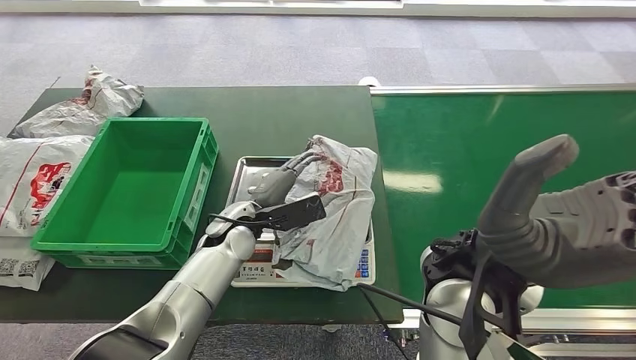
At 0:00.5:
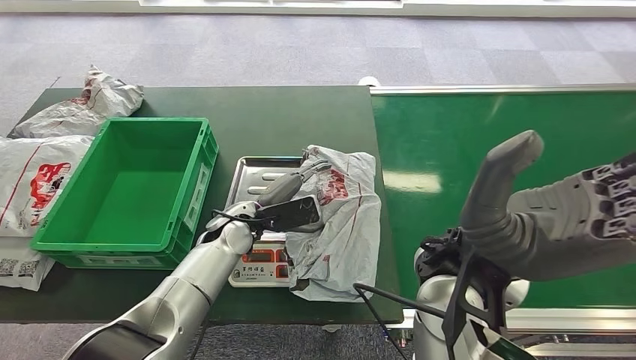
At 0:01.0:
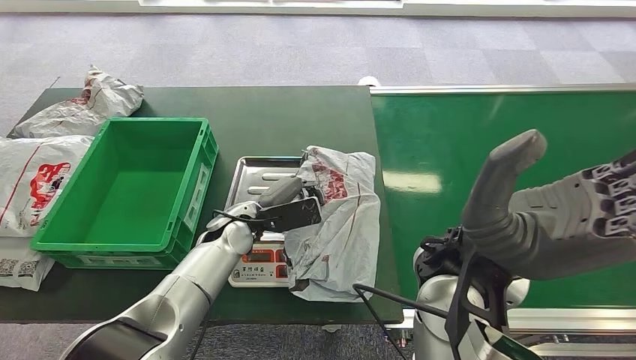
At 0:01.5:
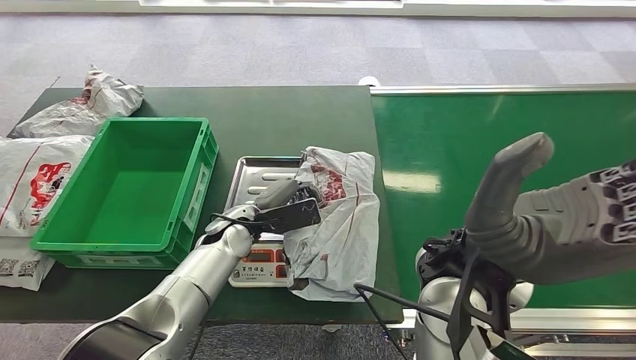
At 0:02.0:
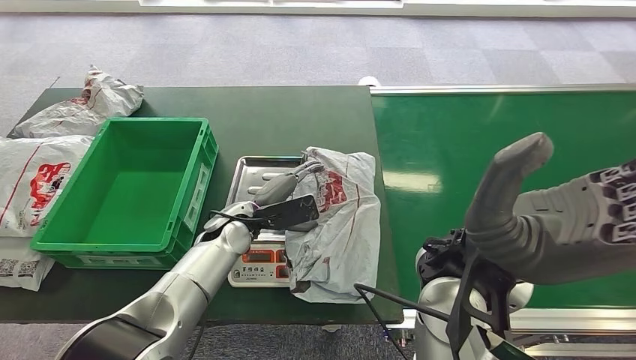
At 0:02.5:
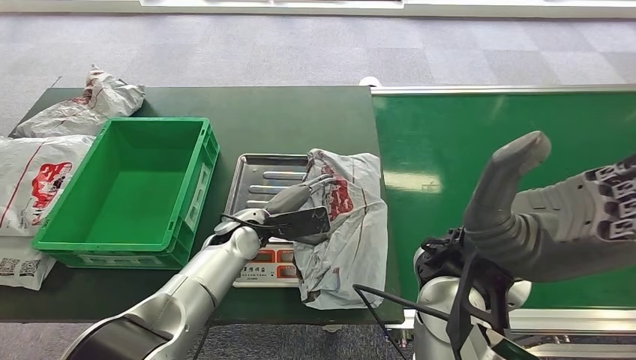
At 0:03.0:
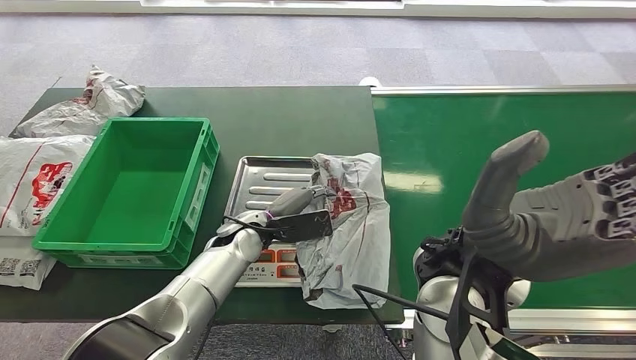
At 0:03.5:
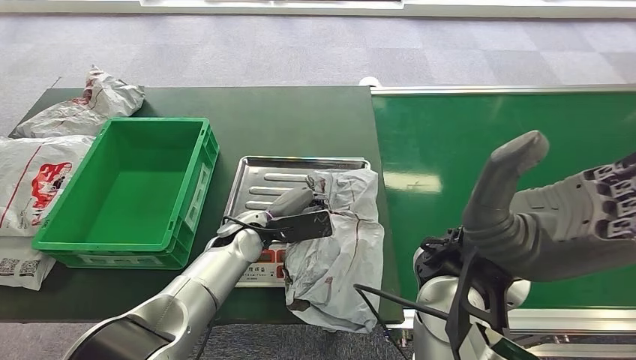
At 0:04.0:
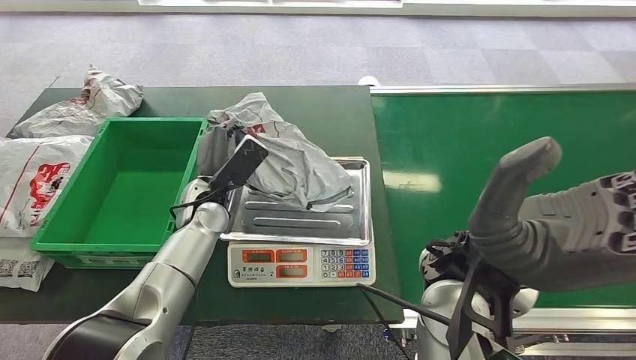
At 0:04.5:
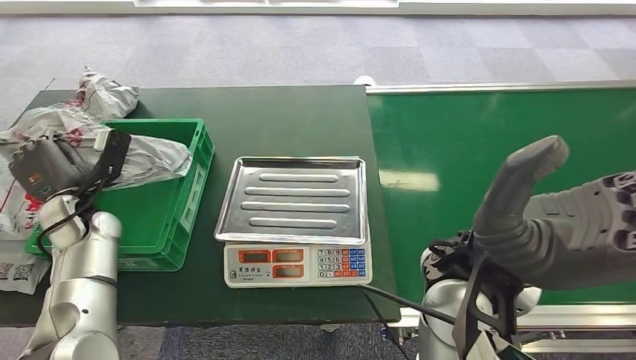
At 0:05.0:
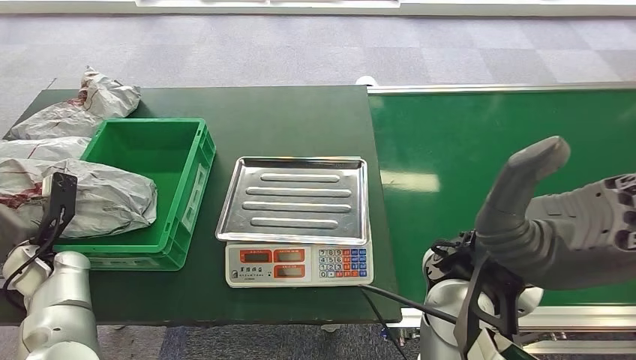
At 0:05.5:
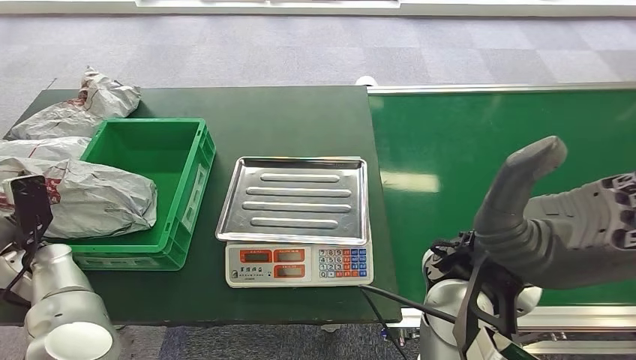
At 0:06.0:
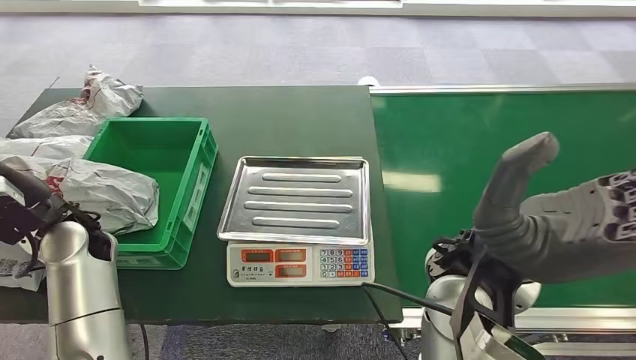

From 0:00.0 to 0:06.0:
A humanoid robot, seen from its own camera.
Task of the whole recording: Weigh the package on the weighing device and place it in the left basket.
Step, from 0:01.0 to 0:04.0: Pick up the package from the inbound machine.
Step, from 0:04.5 to 0:05.5: Place the package into the parcel locker.
From 0:00.0 to 0:02.0: The hands make only small movements.
From 0:02.0 to 0:04.0: The left hand changes place by some 5 cm.
